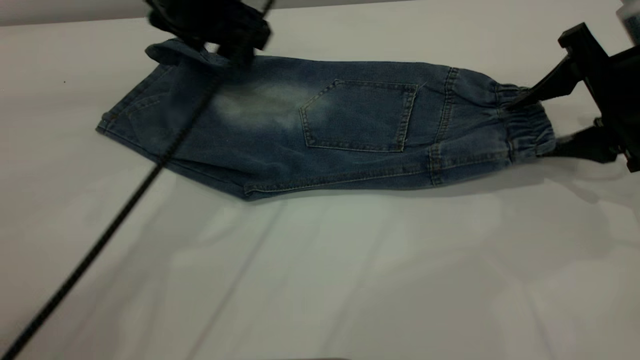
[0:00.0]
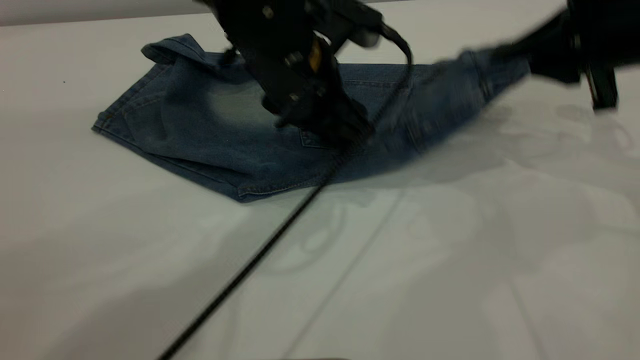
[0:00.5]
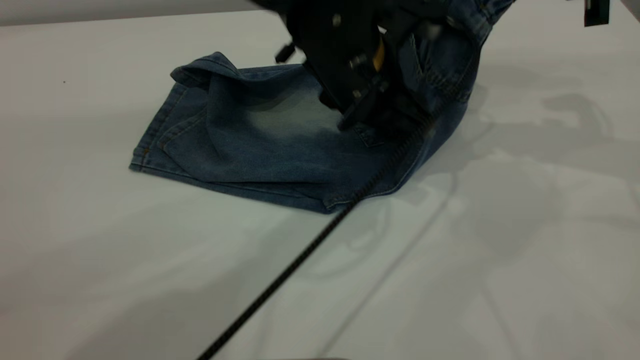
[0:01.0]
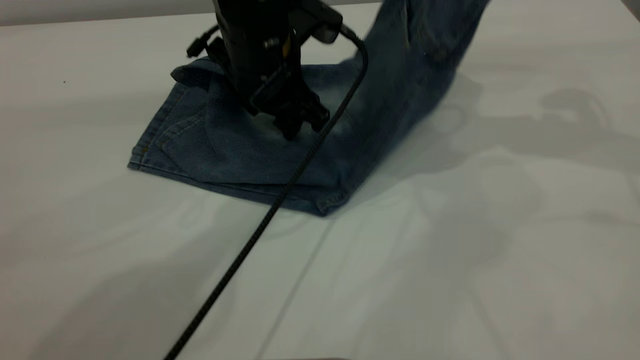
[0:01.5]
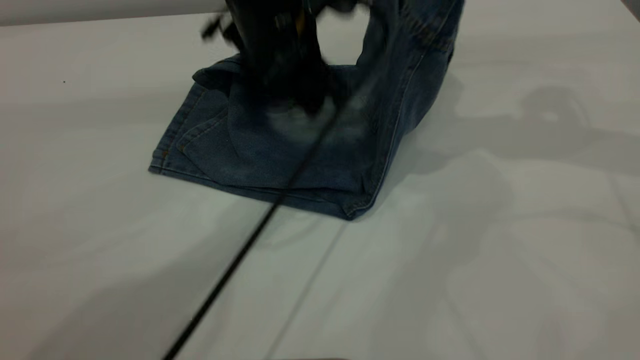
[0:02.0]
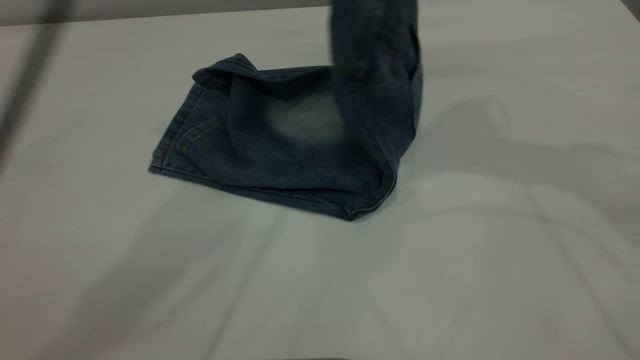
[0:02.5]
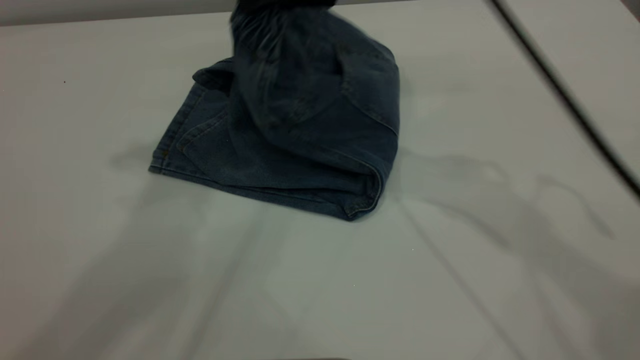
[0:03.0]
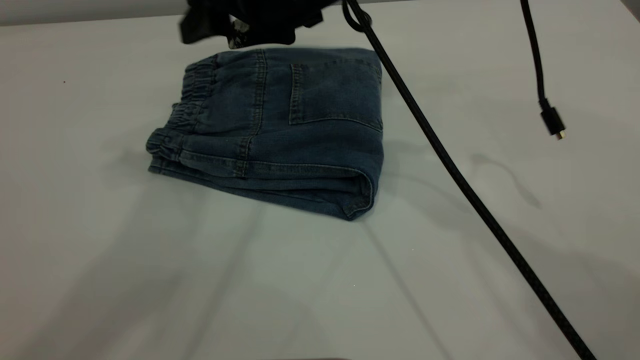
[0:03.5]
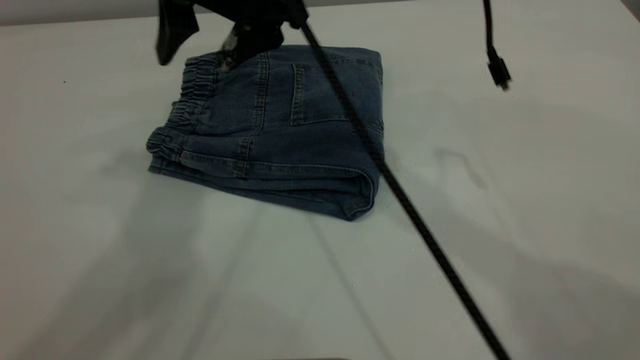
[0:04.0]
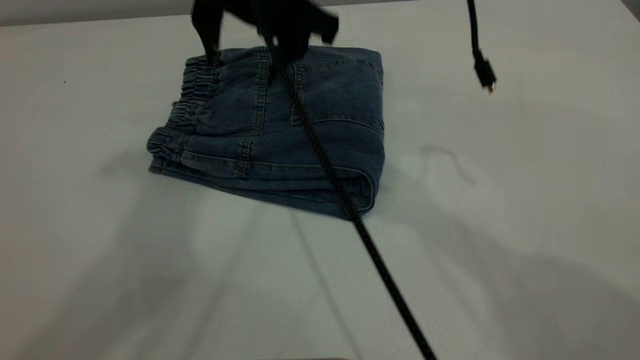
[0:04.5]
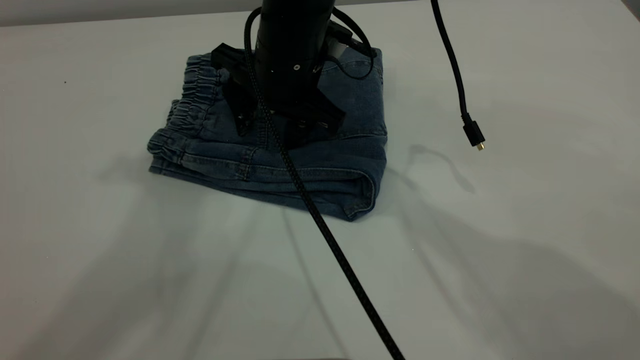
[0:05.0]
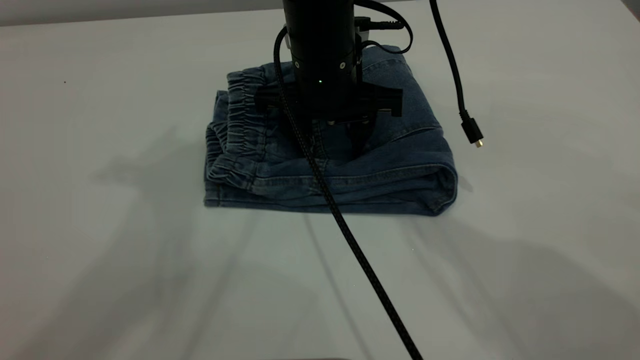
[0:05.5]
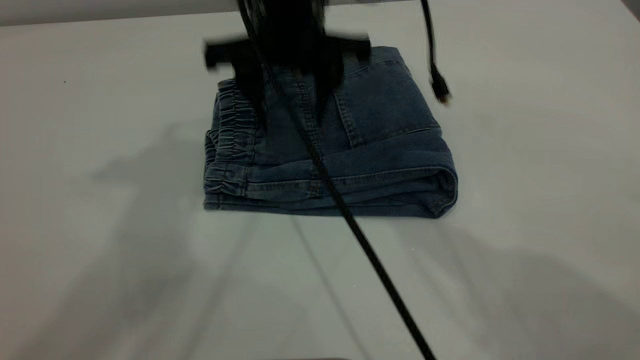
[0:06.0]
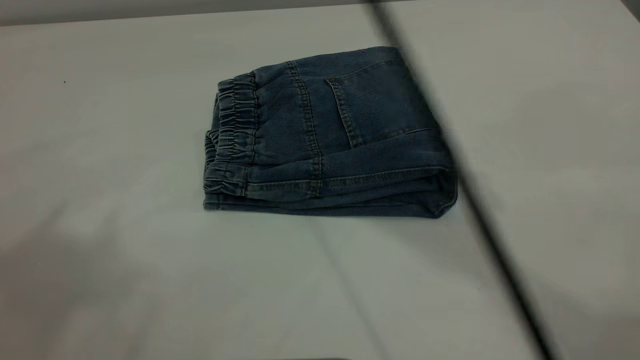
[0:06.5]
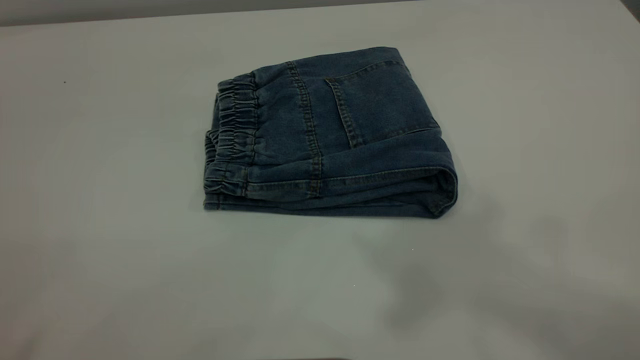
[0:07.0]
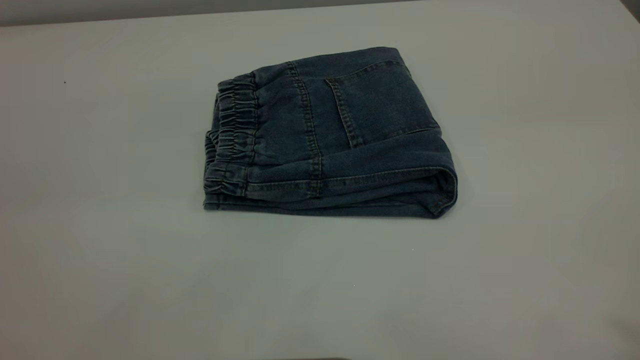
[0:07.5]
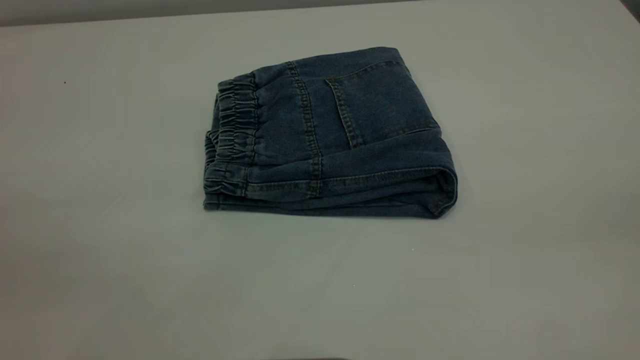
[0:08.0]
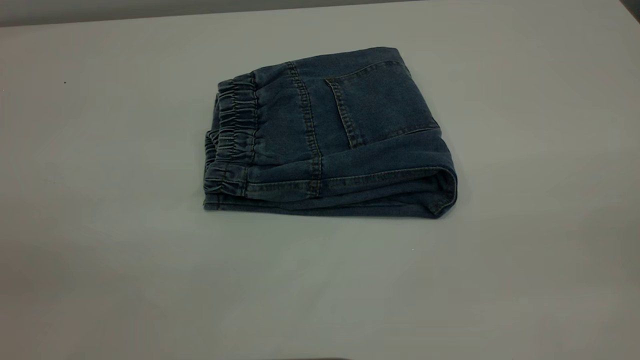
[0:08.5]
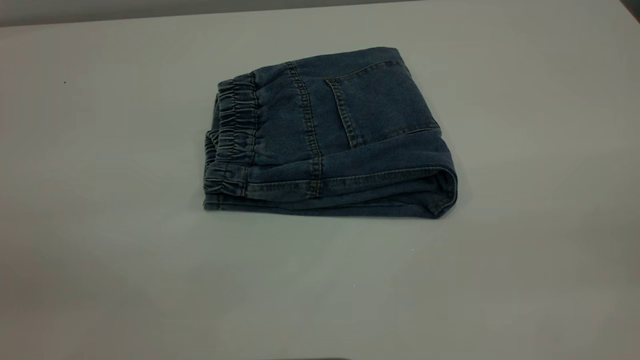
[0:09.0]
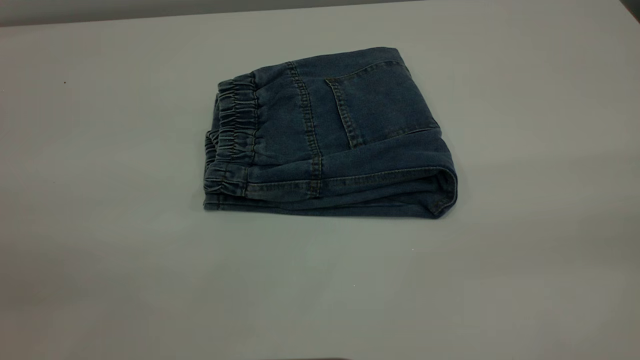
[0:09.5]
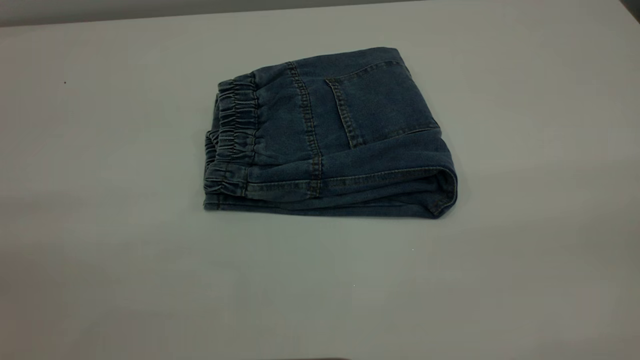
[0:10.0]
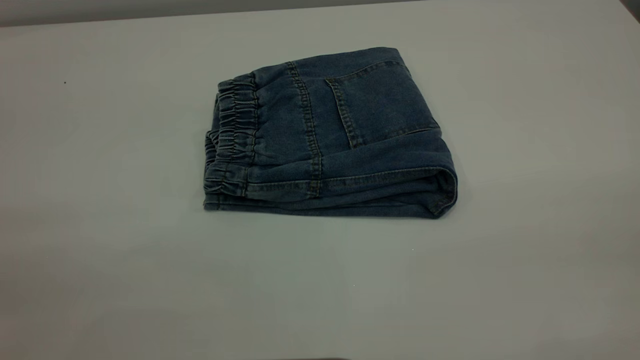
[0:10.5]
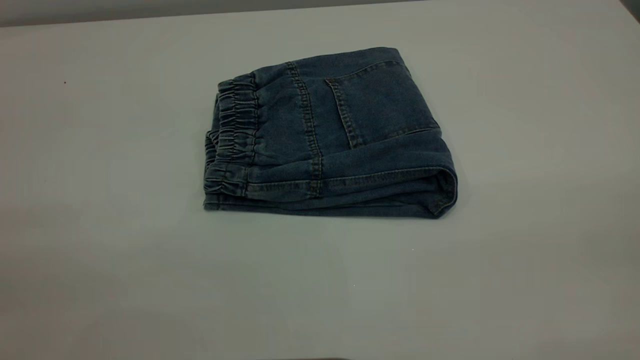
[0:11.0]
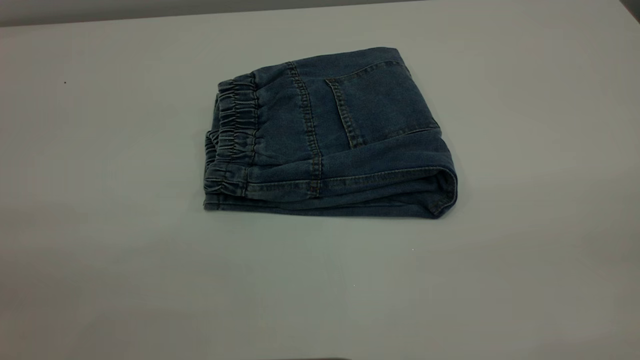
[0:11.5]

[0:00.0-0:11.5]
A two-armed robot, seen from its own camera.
Step, 0:00.0 to 0:03.5: Fold your pants from right to left.
0:00.0 to 0:02.0: The left gripper moves to the right, about 5 cm. Meanwhile the right gripper moves upward, some 15 cm, and closes.
0:02.0 to 0:04.0: The right gripper goes about 30 cm to the left, and opens up. Meanwhile the left gripper goes roughly 30 cm upward.
0:04.0 to 0:06.0: The right gripper travels downward and back again, about 10 cm each way.
0:06.0 to 0:07.5: The right gripper is displaced backward, upward and to the right by about 50 cm. Meanwhile the left gripper travels backward and to the left by approximately 25 cm.
